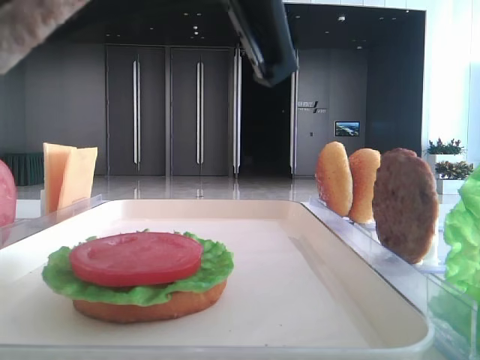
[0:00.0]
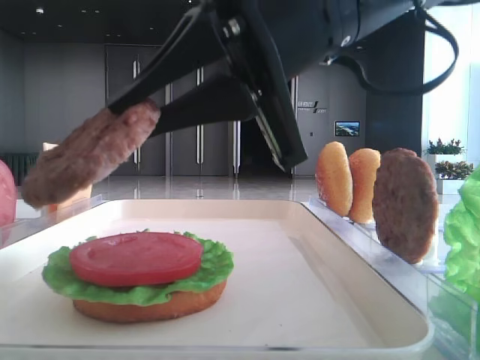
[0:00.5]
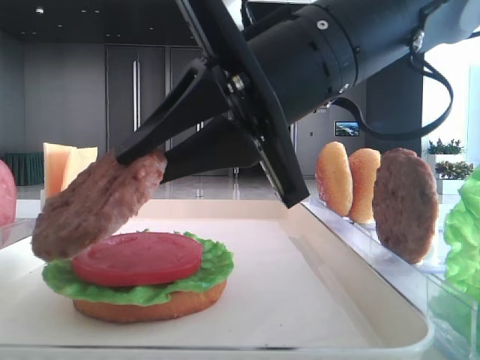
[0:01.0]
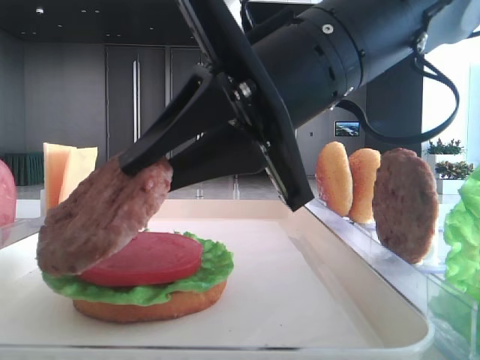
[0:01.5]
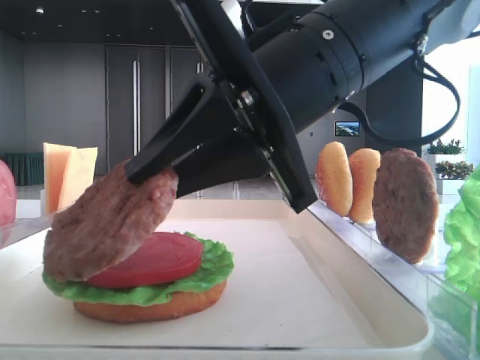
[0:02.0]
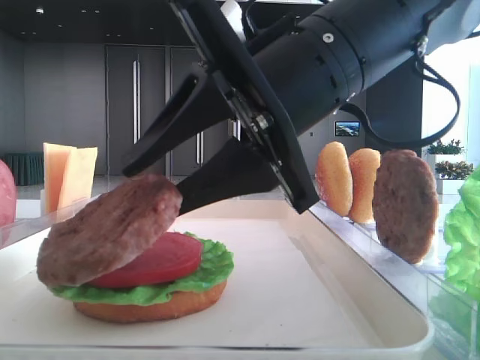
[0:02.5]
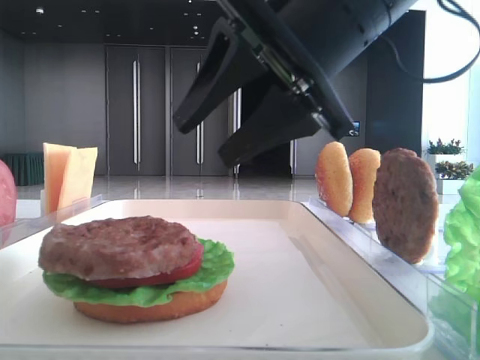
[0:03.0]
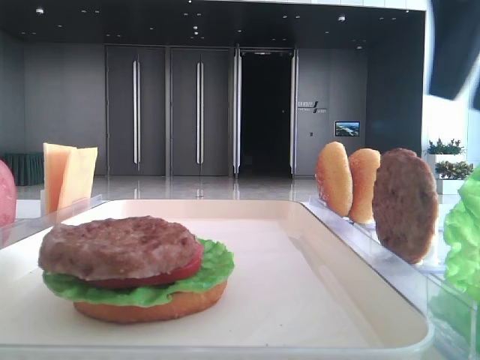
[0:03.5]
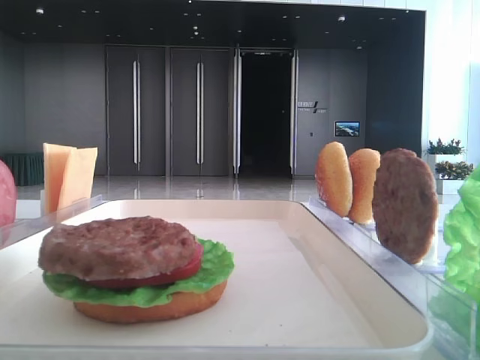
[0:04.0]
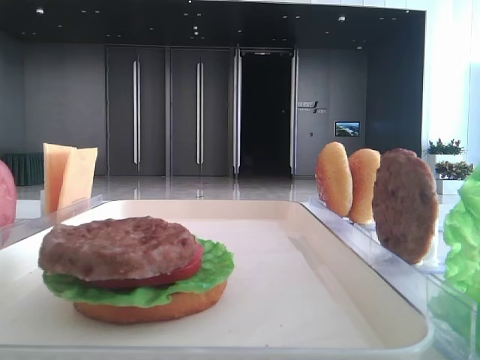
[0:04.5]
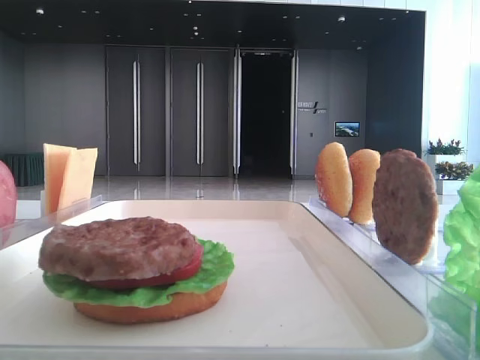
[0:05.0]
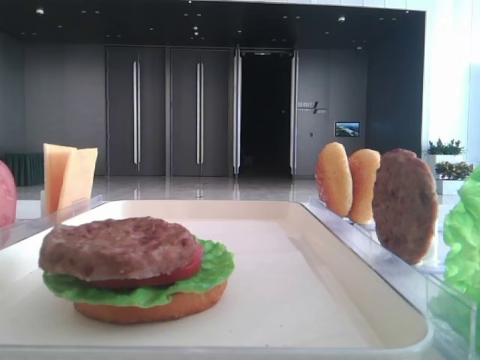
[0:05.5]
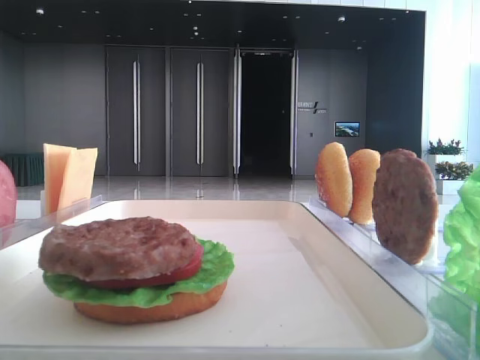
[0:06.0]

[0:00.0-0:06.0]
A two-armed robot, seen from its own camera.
Step, 0:00.0 to 0:02.5: Place the patty on the tomato slice with the right hand.
0:00.0 to 0:02.0: The right gripper goes about 10 cm downward and forward.
0:02.0 to 0:04.0: The right gripper goes roughly 30 cm to the right and upward, and opens its fingers.

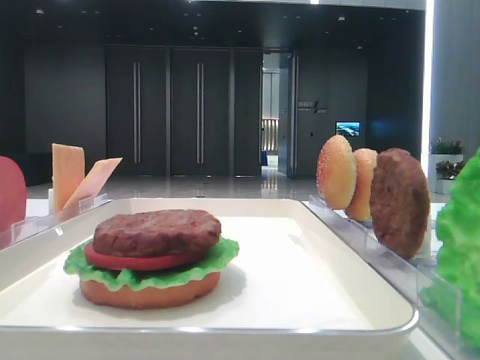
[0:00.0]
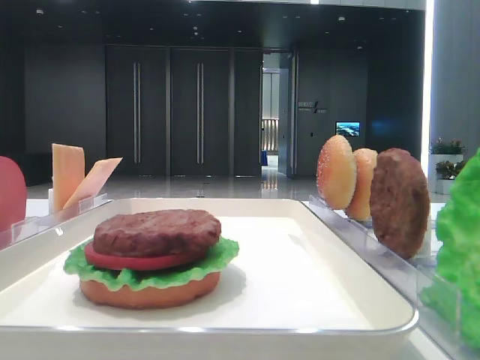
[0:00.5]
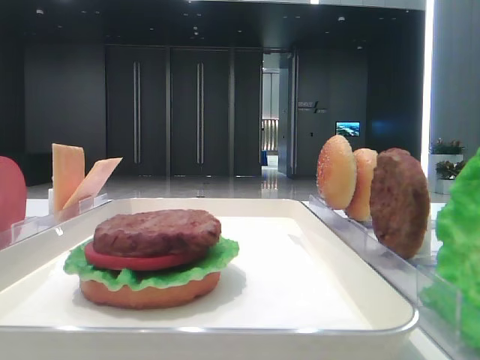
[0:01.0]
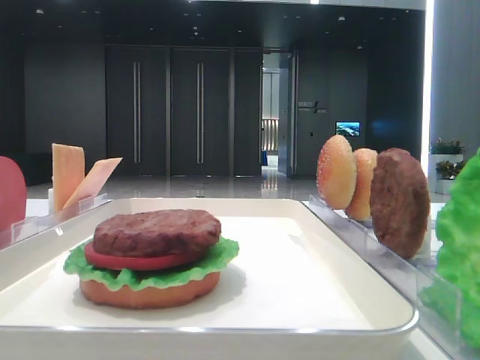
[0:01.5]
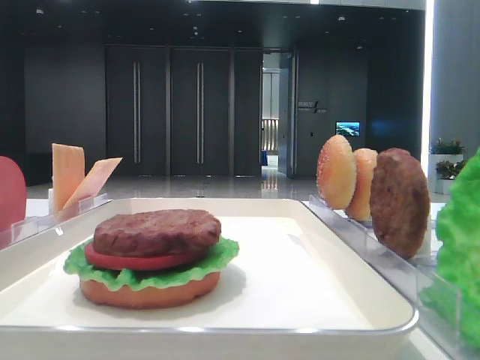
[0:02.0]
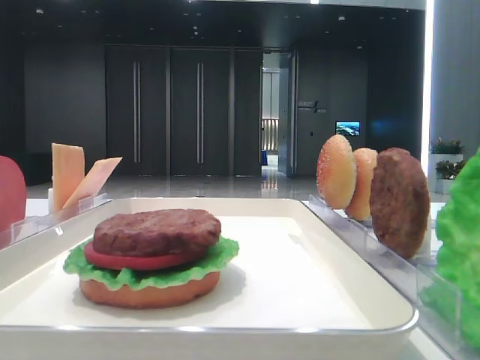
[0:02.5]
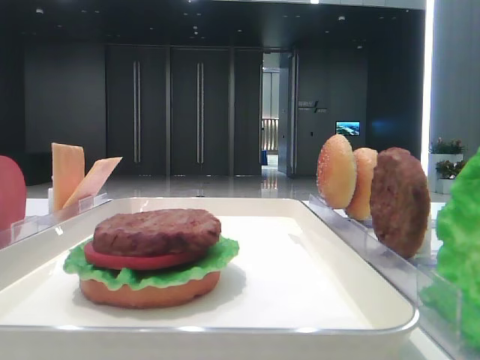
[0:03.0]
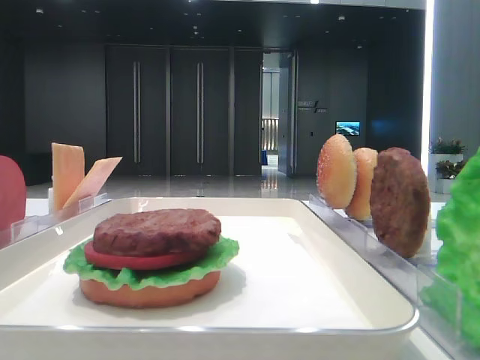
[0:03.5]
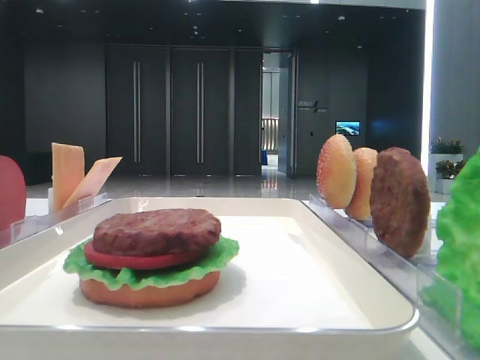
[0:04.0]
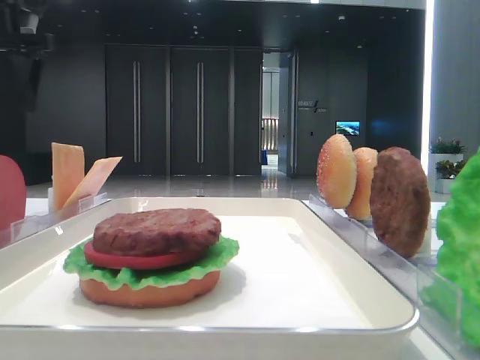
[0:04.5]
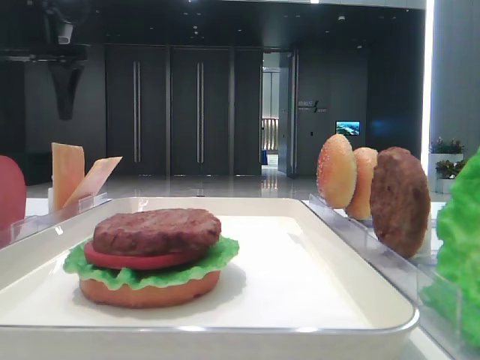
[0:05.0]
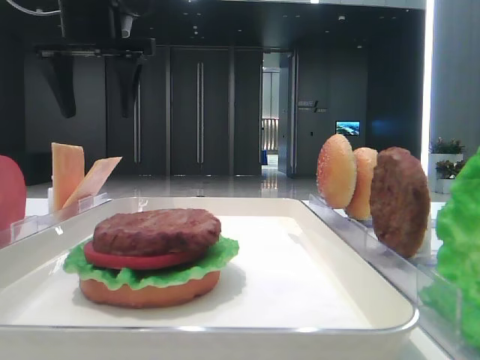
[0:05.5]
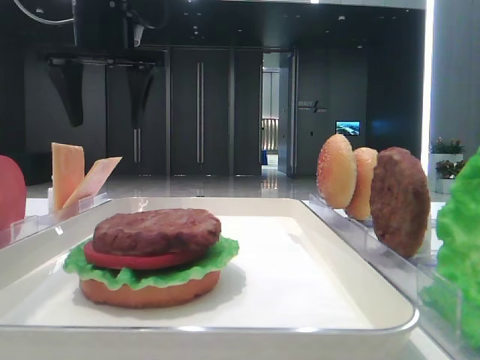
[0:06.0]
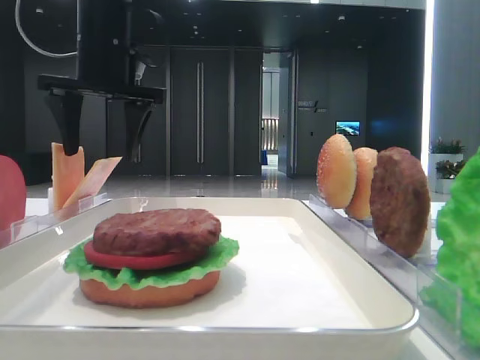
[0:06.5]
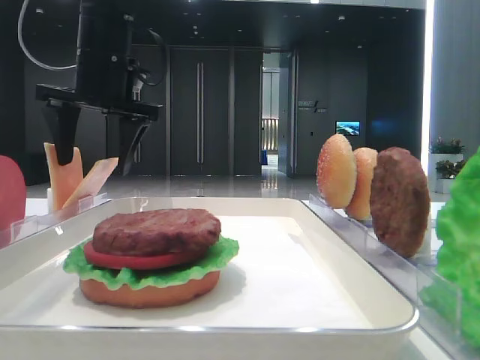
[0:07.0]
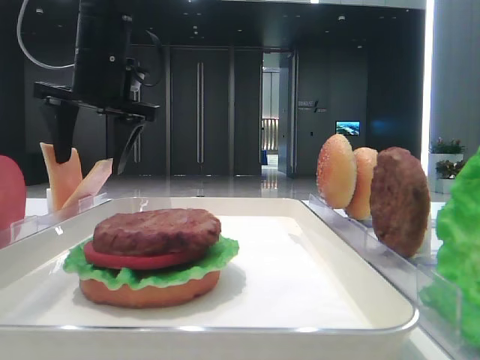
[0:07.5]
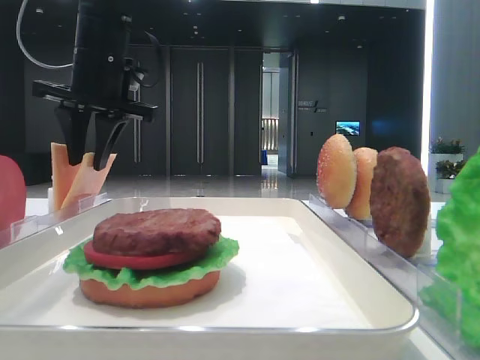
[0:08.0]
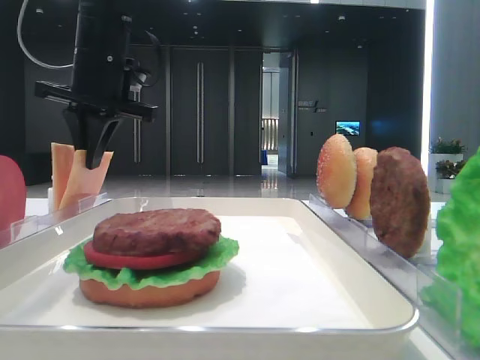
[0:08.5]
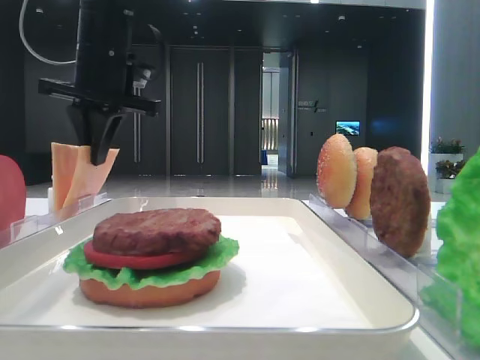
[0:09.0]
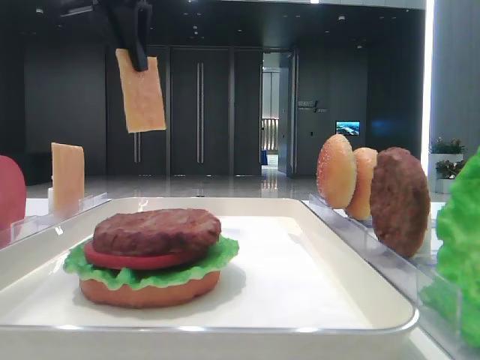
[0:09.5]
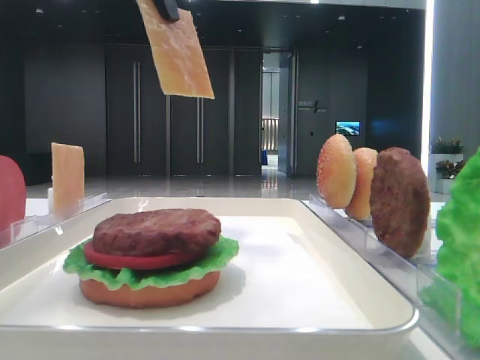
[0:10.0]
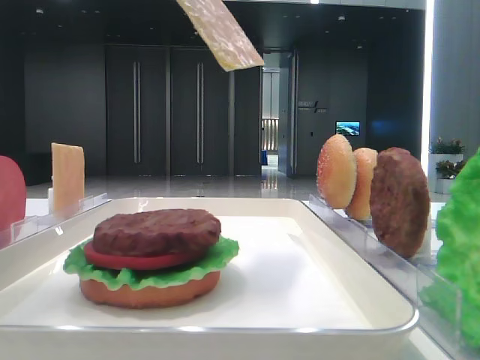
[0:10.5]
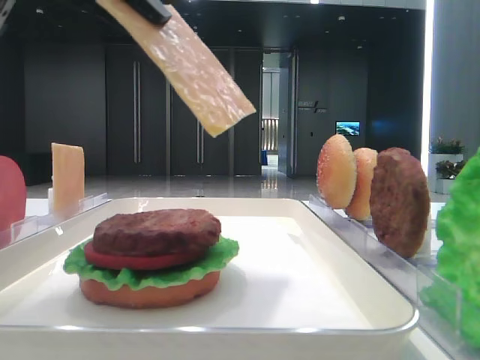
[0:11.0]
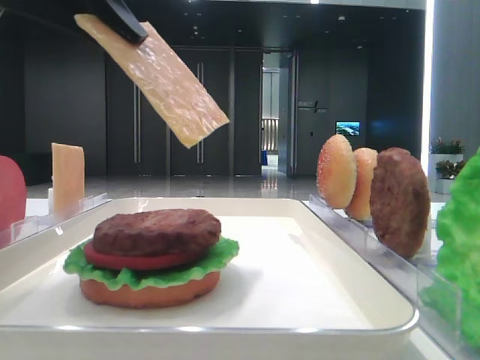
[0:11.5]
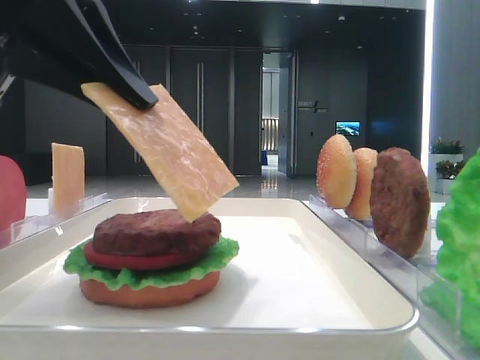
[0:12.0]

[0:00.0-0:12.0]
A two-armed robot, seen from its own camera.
Step, 0:00.0 to 0:08.5: Pick up the cheese slice with the left hand.
0:04.0 to 0:06.0: The left gripper moves to the right, approximately 15 cm.
0:06.0 to 0:08.0: The left gripper heads downward, covering approximately 5 cm, and closes its fingers.
0:08.0 to 0:10.0: The right gripper closes; the left gripper goes roughly 15 cm upward and backward, and closes.
0:10.0 to 0:12.0: The left gripper heads downward and backward, covering roughly 15 cm.

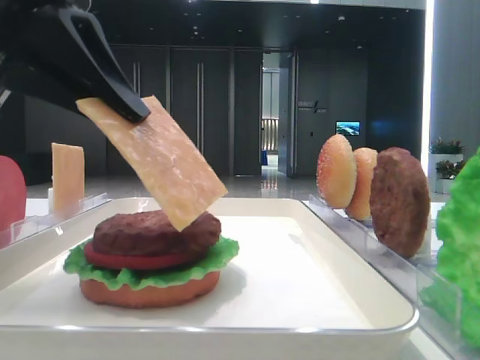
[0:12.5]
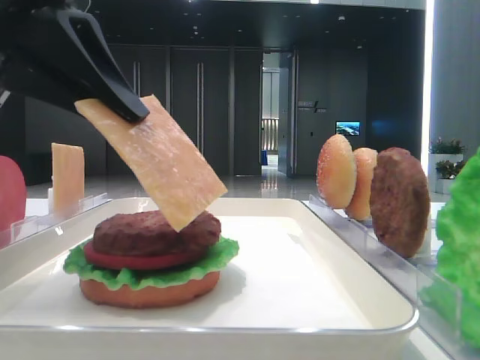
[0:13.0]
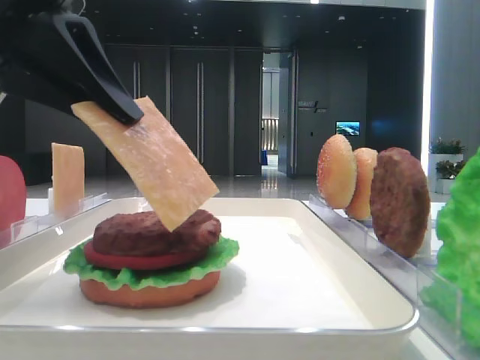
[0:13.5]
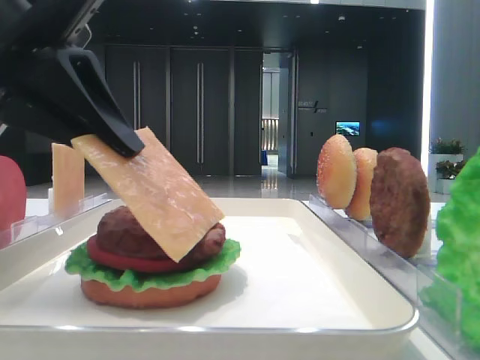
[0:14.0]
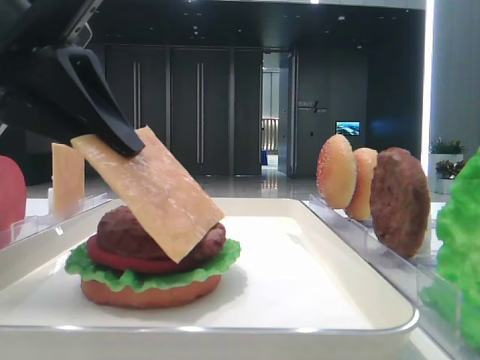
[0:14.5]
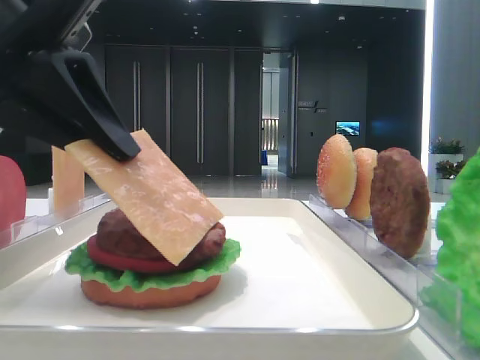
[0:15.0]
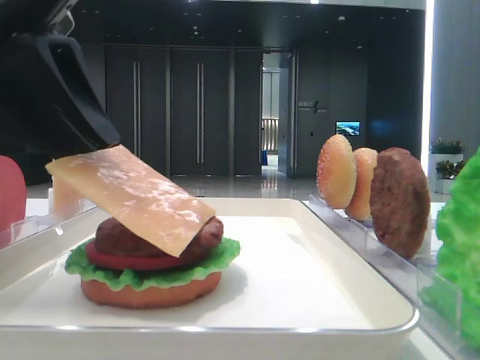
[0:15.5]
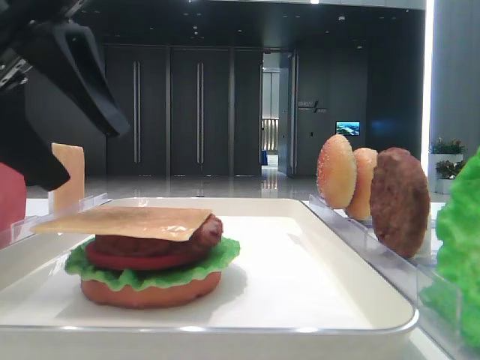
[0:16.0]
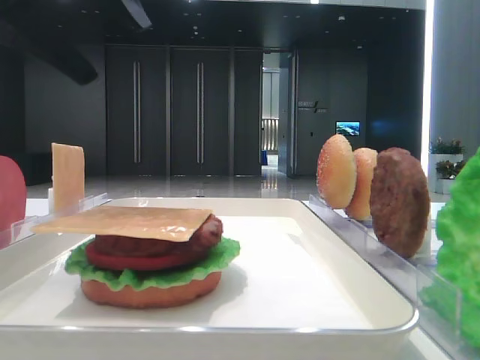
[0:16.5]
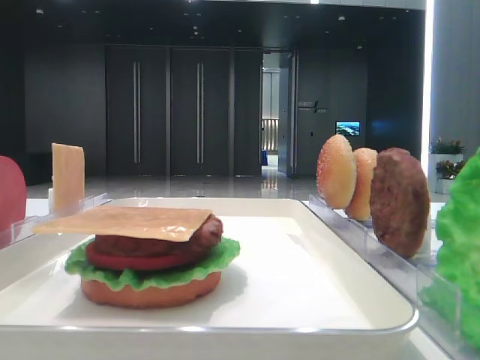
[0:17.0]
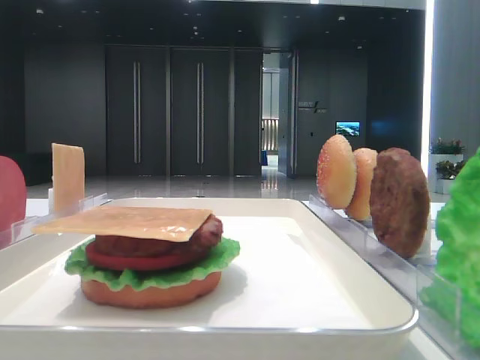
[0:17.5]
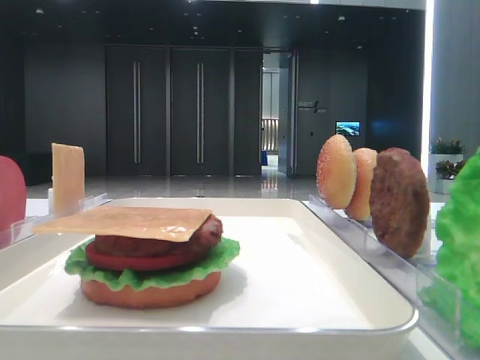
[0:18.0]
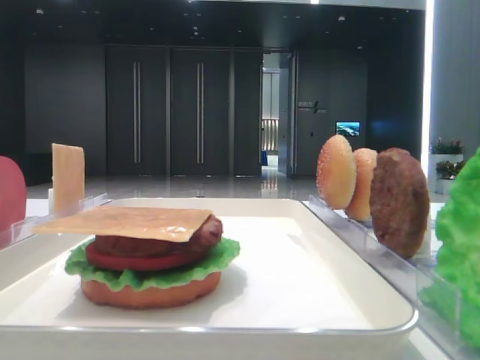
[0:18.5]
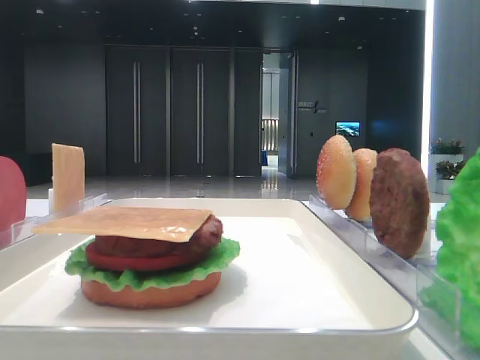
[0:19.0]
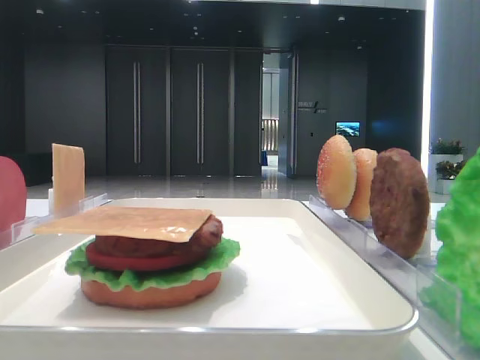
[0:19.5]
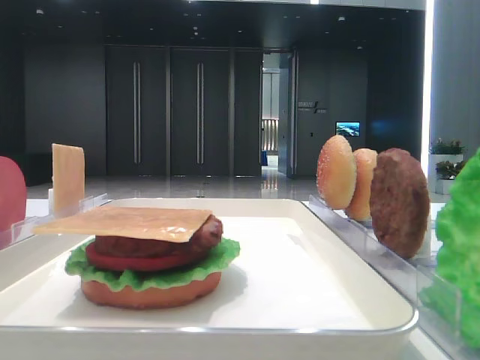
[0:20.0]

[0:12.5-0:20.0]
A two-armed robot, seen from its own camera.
Step, 0:12.5 to 0:16.0: Place the cheese slice on the patty with the left hand.
0:12.5 to 0:14.5: The grippers make only small movements.
0:14.5 to 0:16.5: The left gripper is displaced upward by approximately 10 cm, and opens its fingers.
0:16.5 to 0:18.0: The left gripper is displaced to the left by approximately 15 cm.
